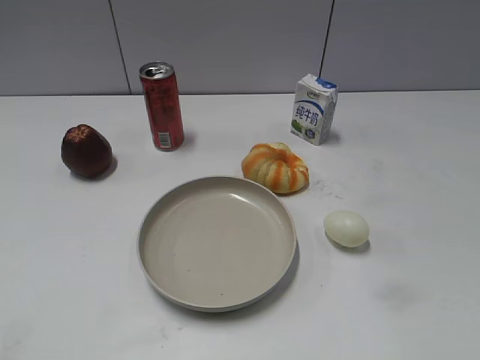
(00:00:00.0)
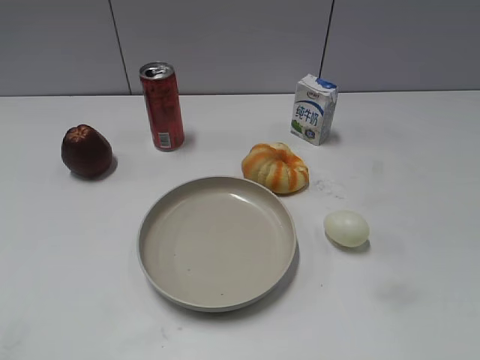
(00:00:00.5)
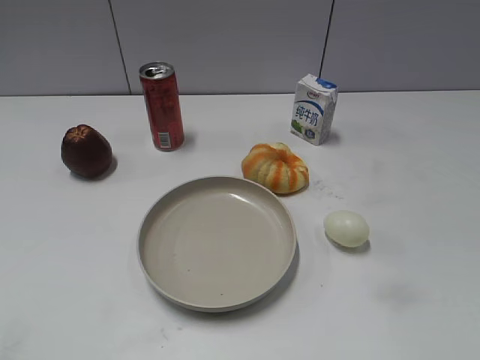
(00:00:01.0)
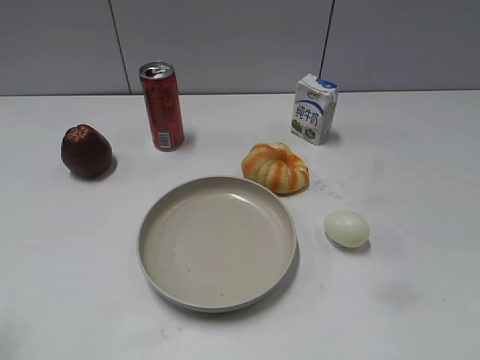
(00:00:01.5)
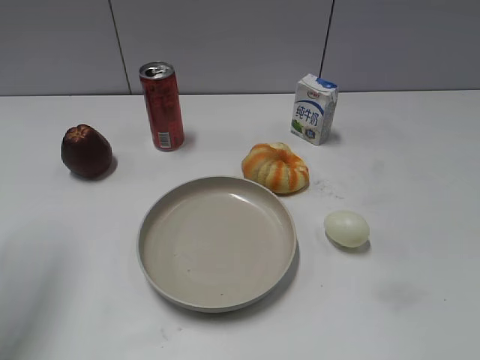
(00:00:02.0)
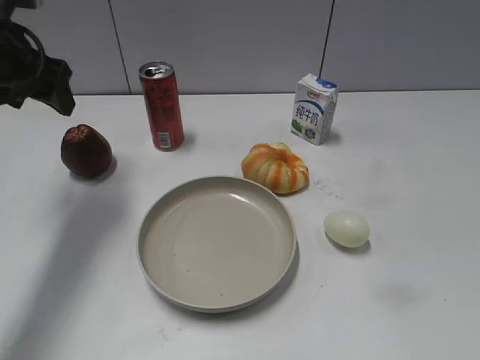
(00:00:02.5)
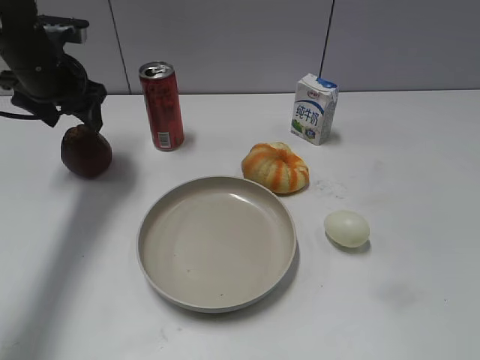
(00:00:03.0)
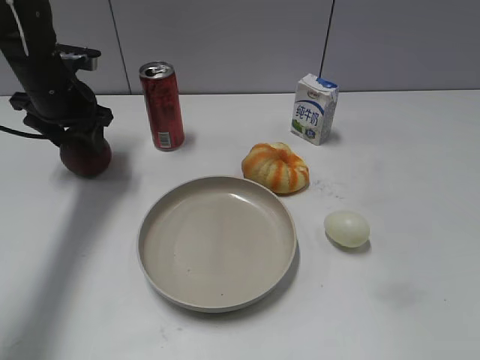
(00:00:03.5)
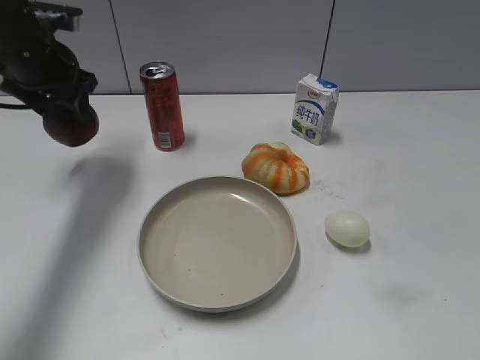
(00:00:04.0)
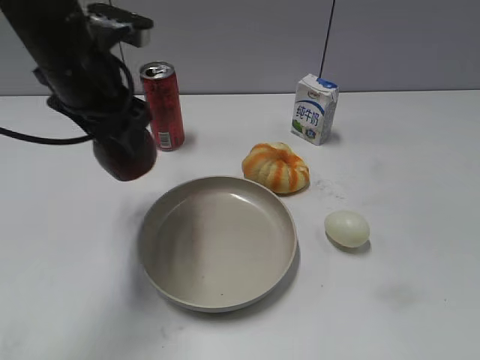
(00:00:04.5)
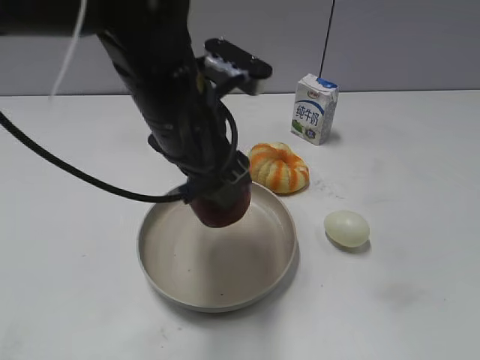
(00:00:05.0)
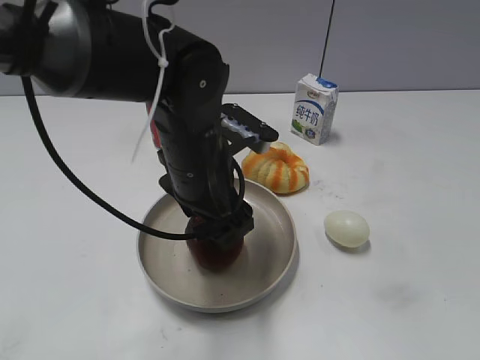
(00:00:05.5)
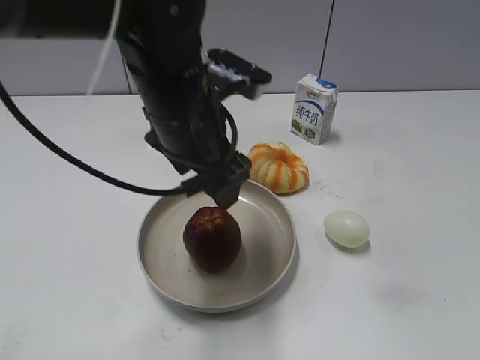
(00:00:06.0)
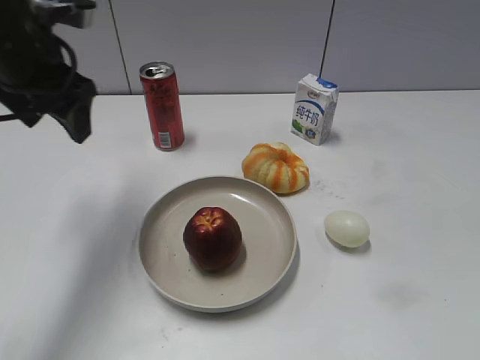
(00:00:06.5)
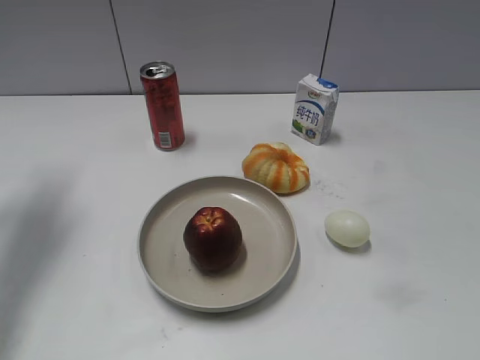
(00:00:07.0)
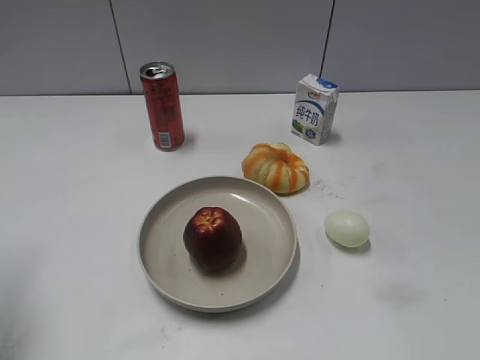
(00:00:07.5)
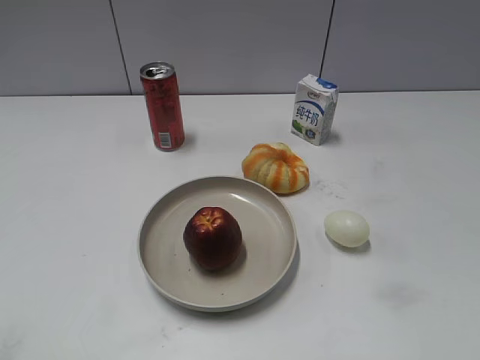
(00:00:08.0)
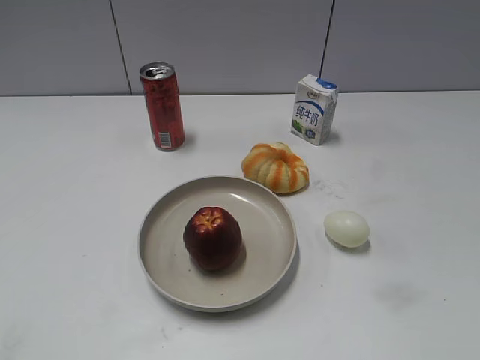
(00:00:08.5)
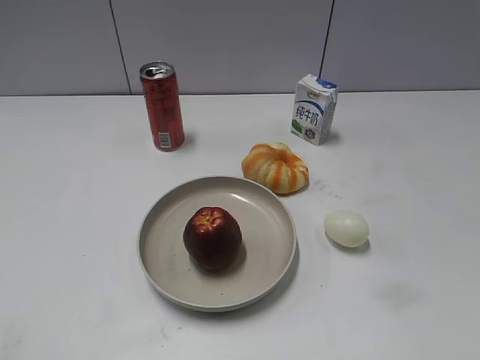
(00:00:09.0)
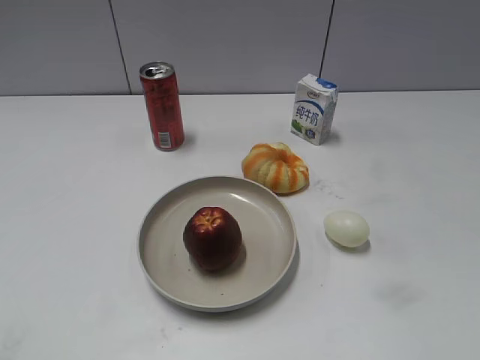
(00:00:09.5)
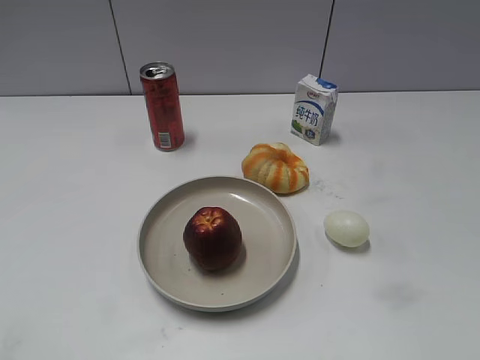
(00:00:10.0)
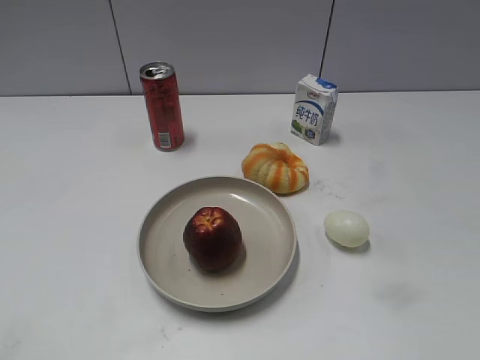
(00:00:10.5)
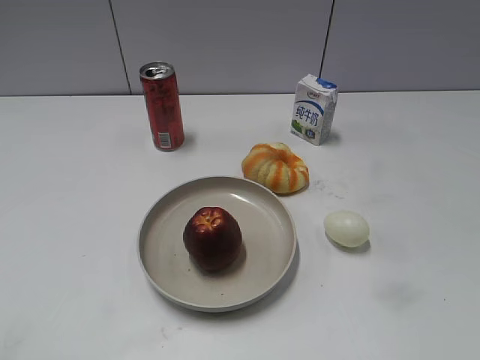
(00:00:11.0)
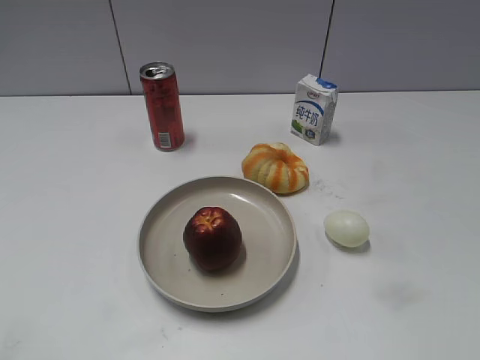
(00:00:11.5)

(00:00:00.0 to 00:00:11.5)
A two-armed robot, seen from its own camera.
Step, 00:00:02.5 - 00:00:03.5: Grasp the apple with left gripper.
Step, 00:00:04.0 - 00:00:06.0: Place the apple on the plate with left gripper.
00:00:02.0 - 00:00:04.0: The left gripper heads forward and downward, covering approximately 20 cm, and closes up.
00:00:04.0 - 00:00:06.0: The left gripper shifts some 25 cm to the right and backward, and opens up.
00:00:06.0 - 00:00:07.5: The left gripper travels to the left by some 25 cm, and closes its fingers.
00:00:07.5 - 00:00:09.5: The left gripper is displaced backward by roughly 20 cm, and closes its fingers.
00:00:09.5 - 00:00:11.5: Both grippers stay about where they are.
